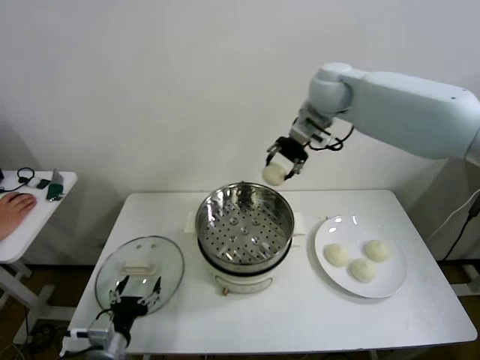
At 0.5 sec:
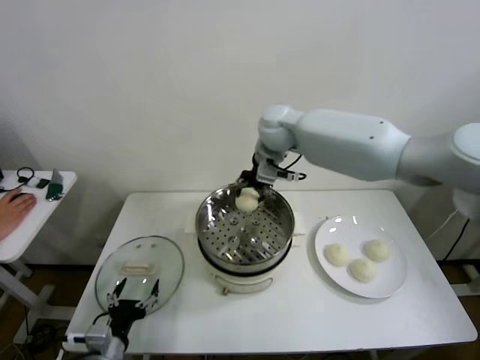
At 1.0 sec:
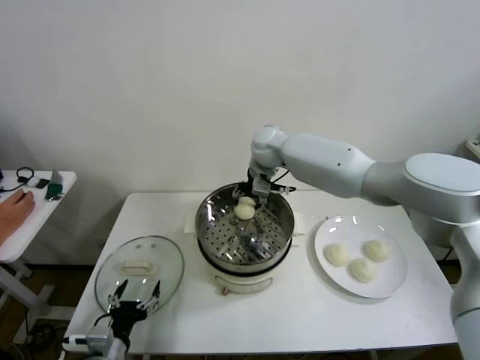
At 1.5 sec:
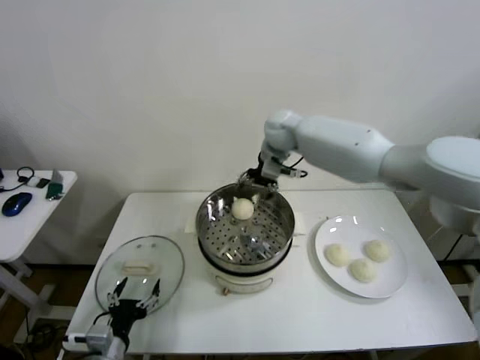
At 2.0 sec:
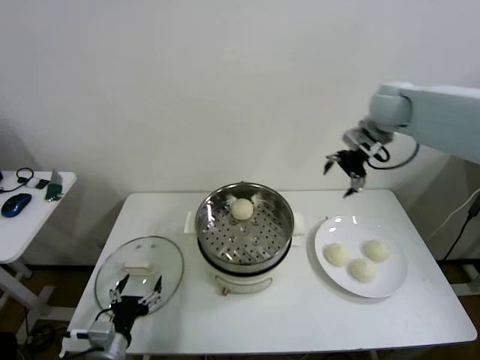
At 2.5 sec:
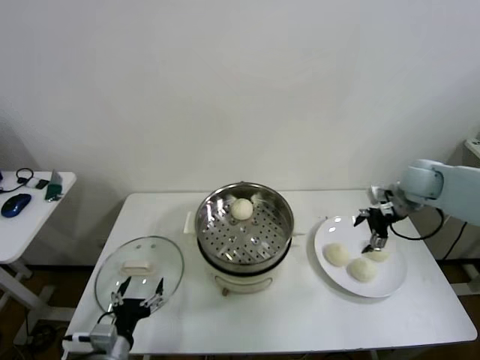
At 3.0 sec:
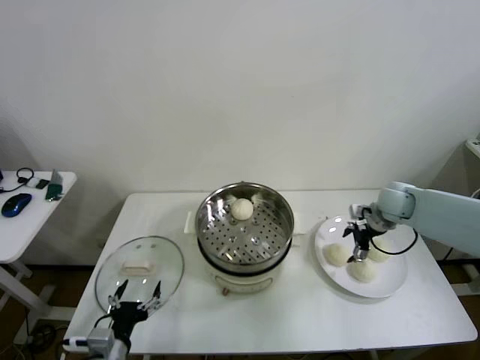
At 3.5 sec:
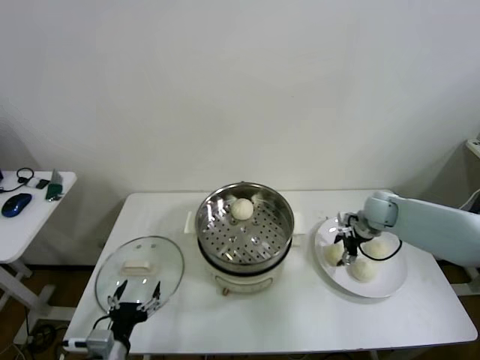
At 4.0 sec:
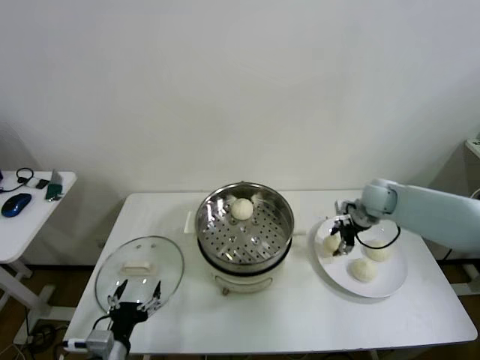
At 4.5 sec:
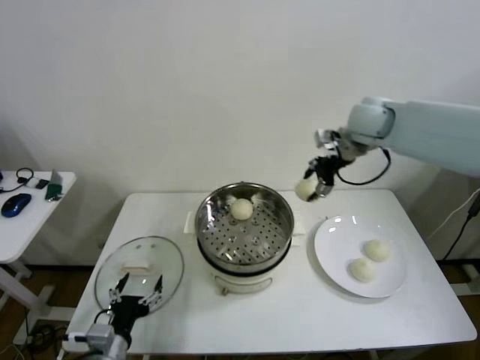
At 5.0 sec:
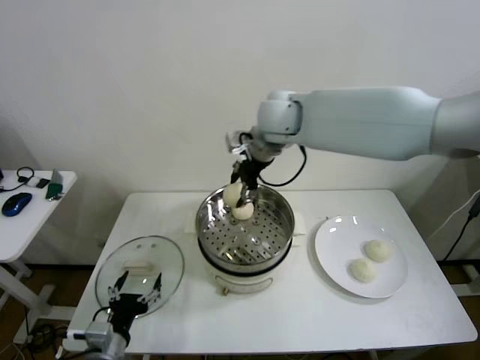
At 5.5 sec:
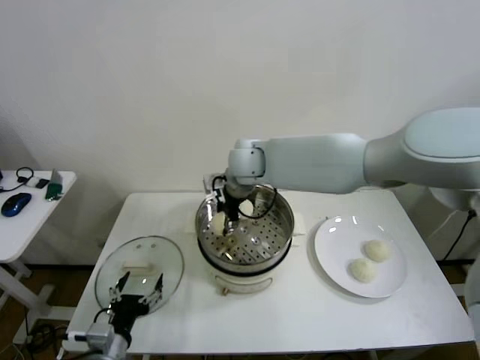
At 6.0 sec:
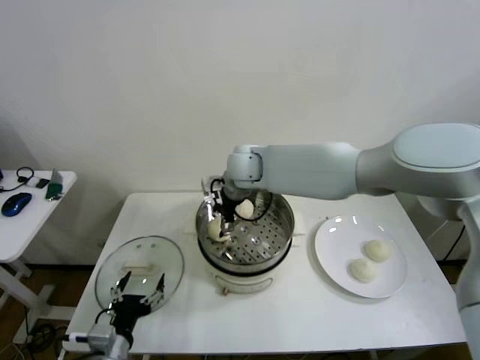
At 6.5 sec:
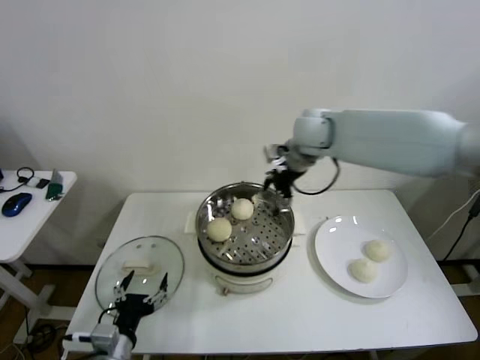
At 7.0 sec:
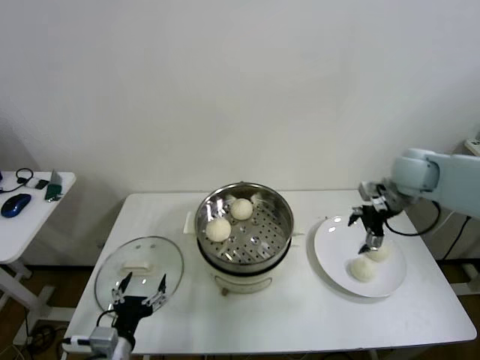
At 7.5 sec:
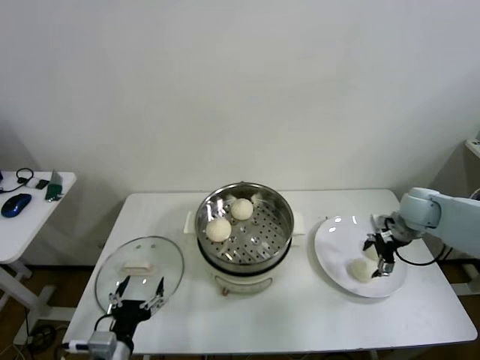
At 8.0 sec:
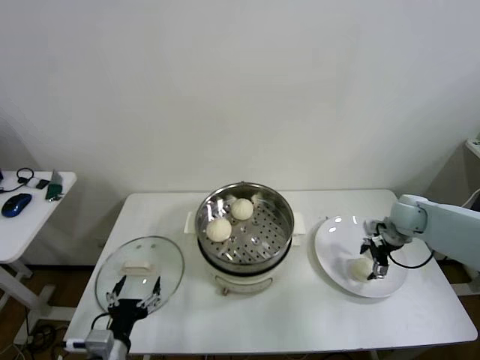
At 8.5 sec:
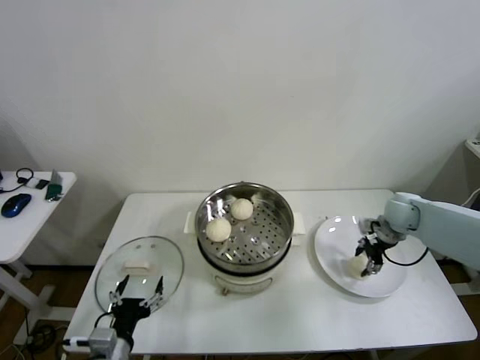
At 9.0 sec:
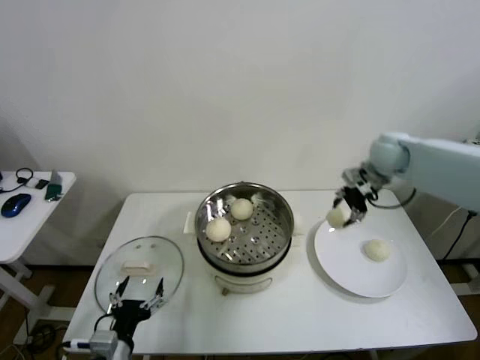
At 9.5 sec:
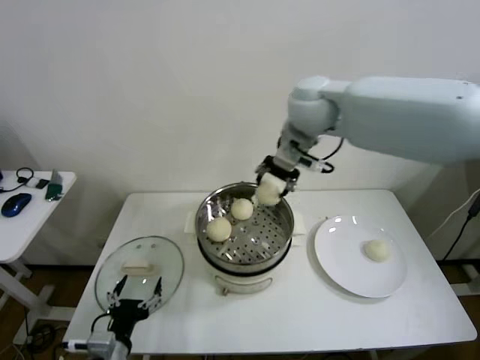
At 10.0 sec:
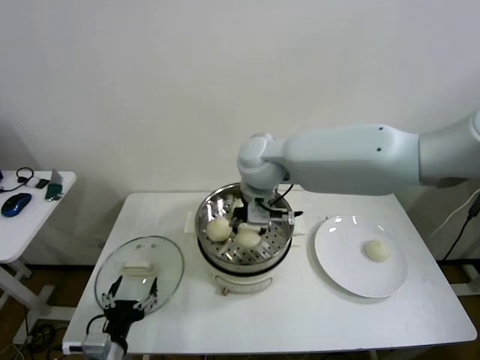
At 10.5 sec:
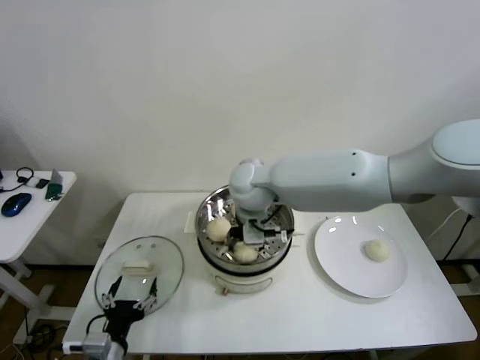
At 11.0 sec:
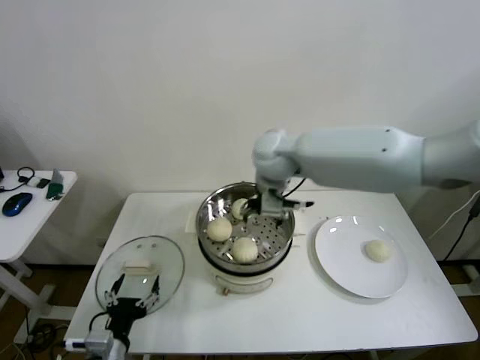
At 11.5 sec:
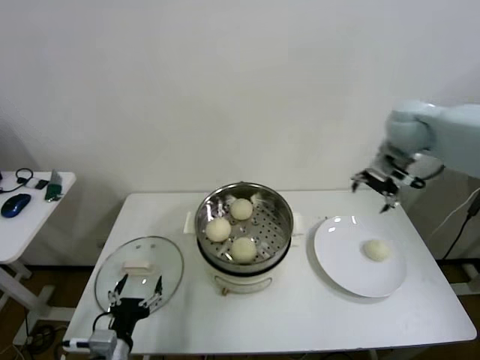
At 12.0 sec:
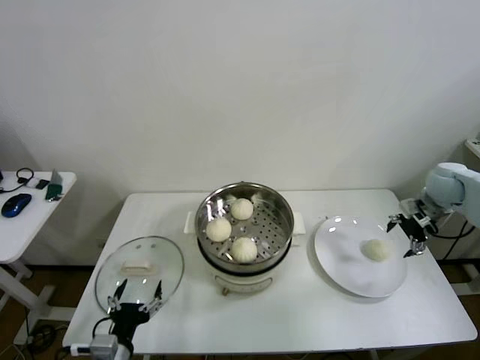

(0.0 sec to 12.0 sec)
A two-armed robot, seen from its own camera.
Step, 1.5 sec - 3.5 sec: Grasp the baozi in the plate with right gripper.
Step, 4.0 sec - 5.5 sec: Place the baozi on the steamer with right gripper.
Step, 6.0 sec - 8.0 sec: Grasp the baozi in the plate with right gripper.
Step, 8.5 sec - 10.5 sec: Place the baozi on the steamer with right gripper.
0.0 sec - 2.0 sec: The right gripper shifts about 20 cm to the right, and opens.
2.0 sec - 4.0 sec: The right gripper shifts about 20 cm downward, and closes up.
4.0 sec - 6.0 sec: The right gripper shifts roughly 35 cm to the left, and opens its fingers.
6.0 sec - 8.0 sec: The right gripper heads to the right, covering about 40 cm.
8.0 sec - 10.0 sec: The right gripper moves to the left and upward, roughly 40 cm, and closes.
10.0 sec - 12.0 sec: The right gripper heads to the right, covering about 40 cm, and opens its fingers.

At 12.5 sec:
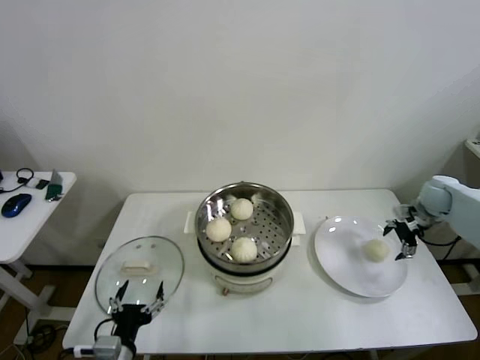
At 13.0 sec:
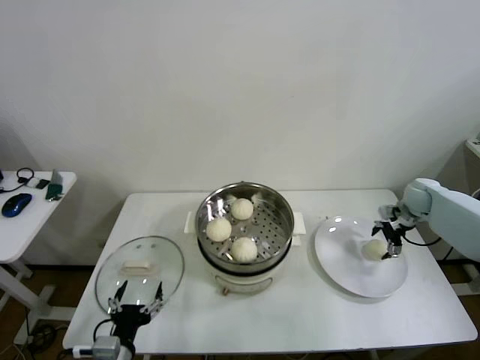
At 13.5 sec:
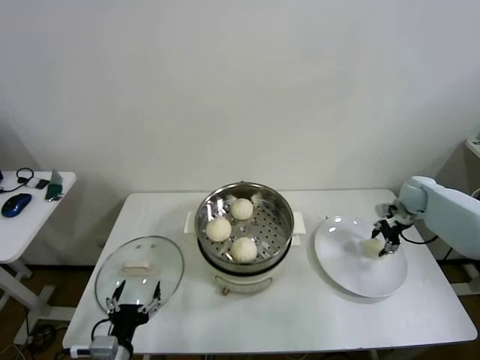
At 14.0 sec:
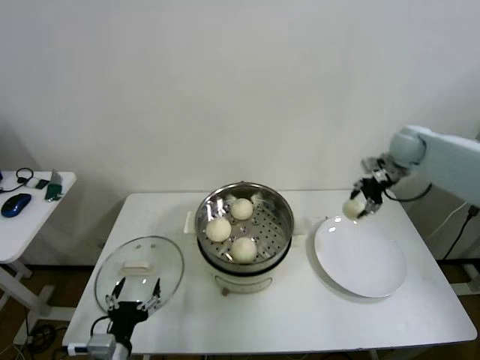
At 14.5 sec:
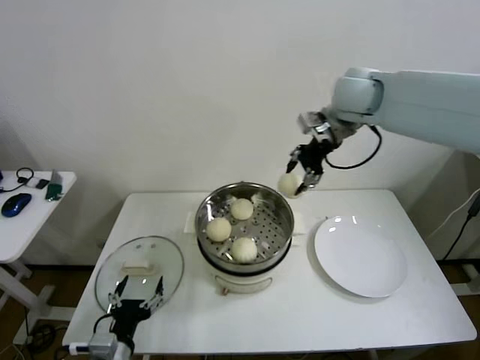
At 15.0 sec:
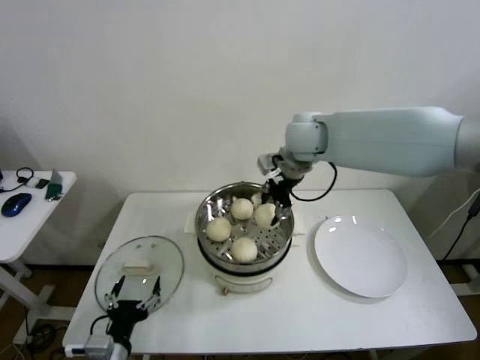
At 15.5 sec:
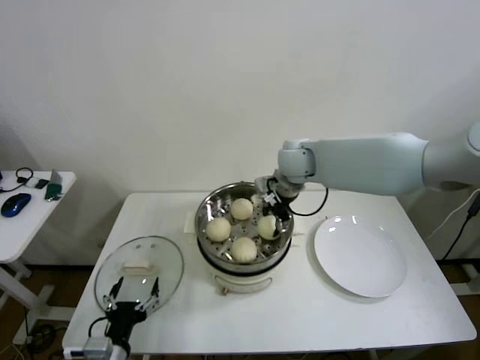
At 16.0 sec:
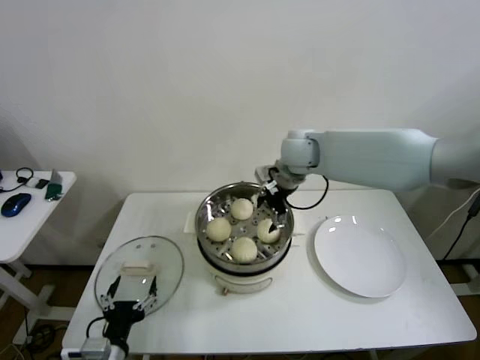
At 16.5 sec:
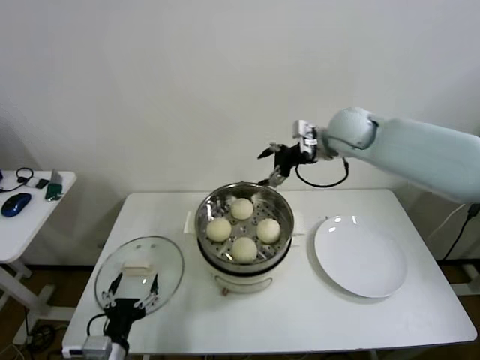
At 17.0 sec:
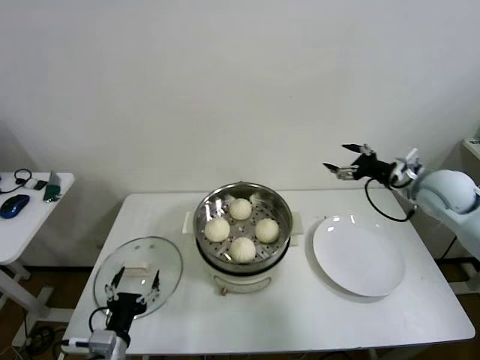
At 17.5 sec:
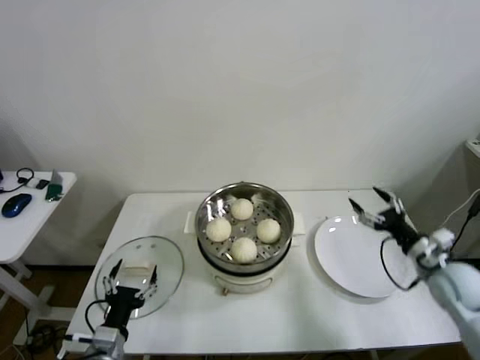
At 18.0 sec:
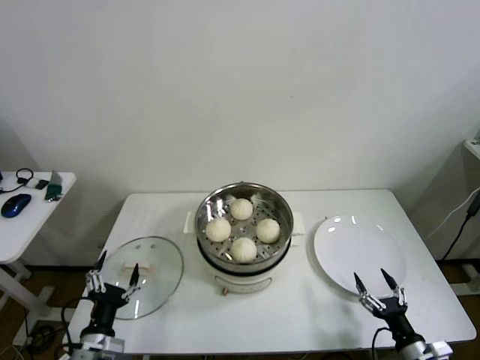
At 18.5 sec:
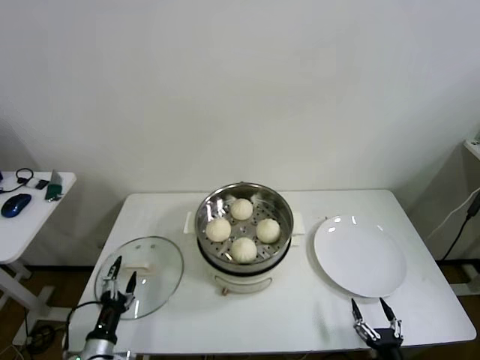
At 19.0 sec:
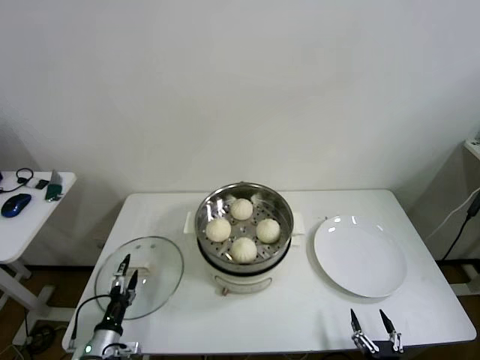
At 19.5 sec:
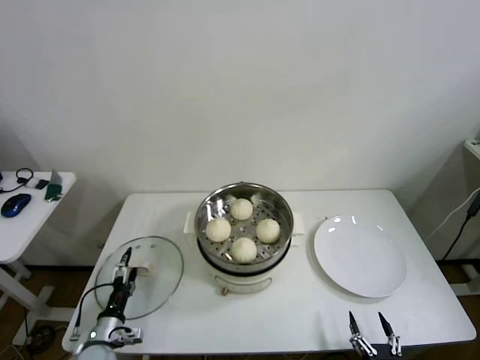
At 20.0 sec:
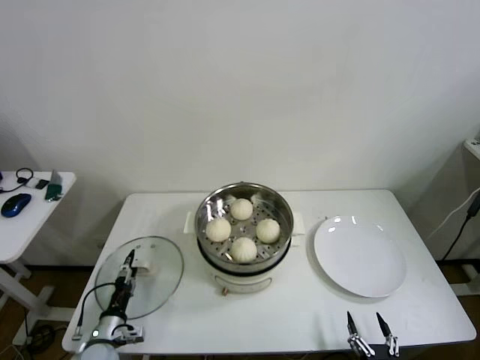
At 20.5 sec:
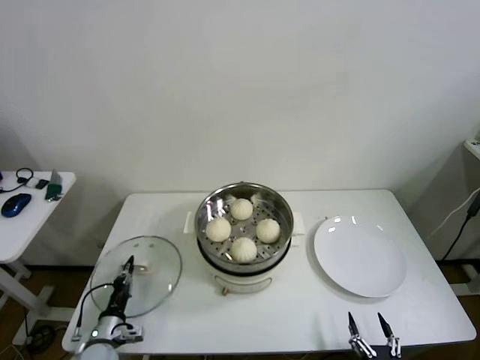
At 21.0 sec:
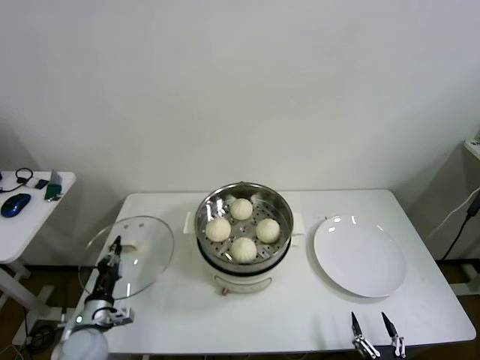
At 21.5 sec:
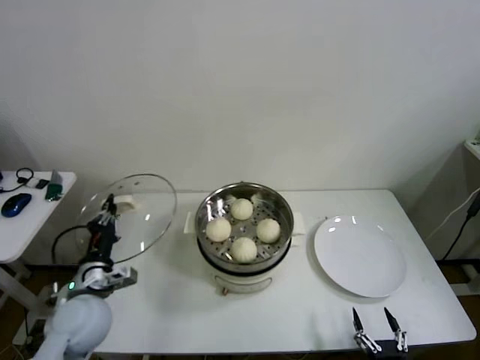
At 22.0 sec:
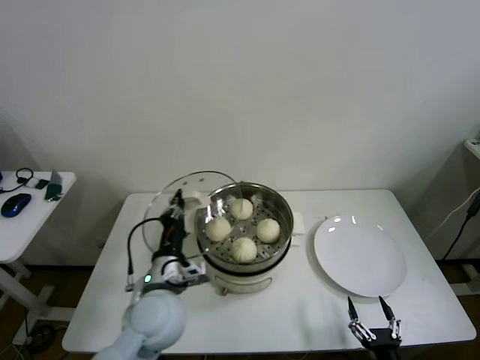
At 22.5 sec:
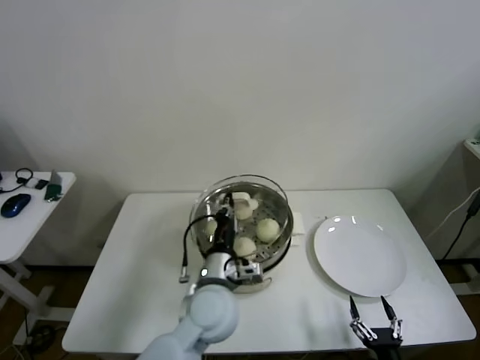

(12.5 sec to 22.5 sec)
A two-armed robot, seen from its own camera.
Step, 14.0 sec - 15.5 sec: Place the baozi on the steamer with right gripper.
Step, 16.0 sec - 20.0 sec: Grasp the pot lid with left gripper.
12.5 sec - 14.5 sec: The right gripper moves to the left and upward, some 40 cm, and closes up.
14.5 sec - 16.5 sec: The right gripper shifts some 10 cm downward, and opens up.
16.5 sec - 18.5 sec: The left gripper goes roughly 10 cm downward and to the left, while the right gripper is displaced backward and downward by some 60 cm.
18.5 sec - 20.5 sec: The left gripper heads forward and downward, covering approximately 10 cm, and closes.
20.5 sec - 22.5 sec: The left gripper goes approximately 35 cm to the right and upward.

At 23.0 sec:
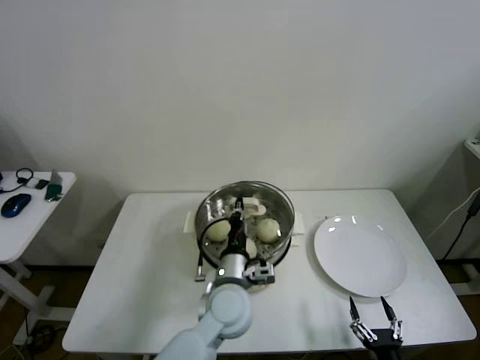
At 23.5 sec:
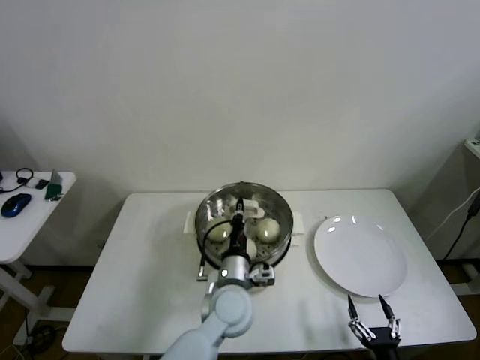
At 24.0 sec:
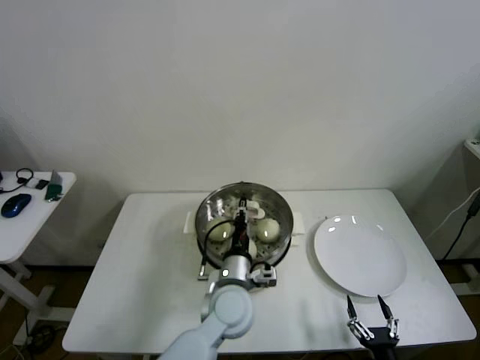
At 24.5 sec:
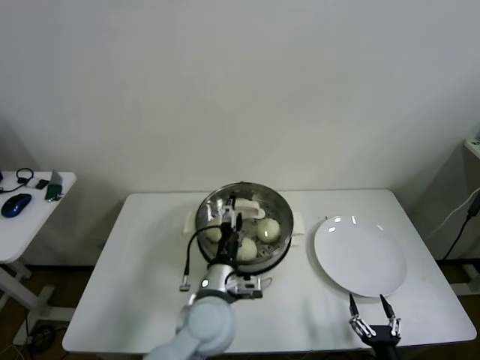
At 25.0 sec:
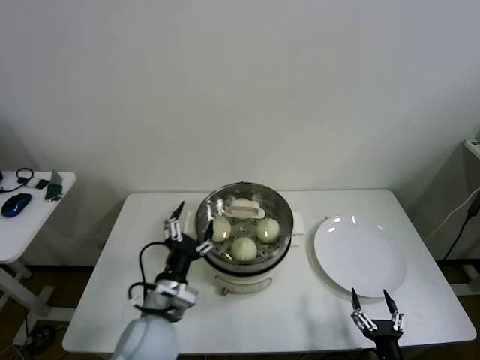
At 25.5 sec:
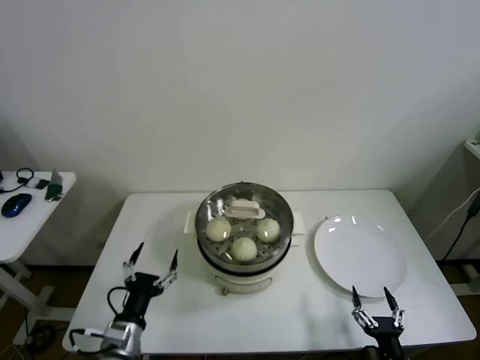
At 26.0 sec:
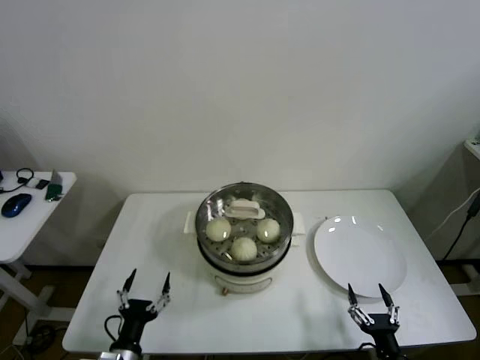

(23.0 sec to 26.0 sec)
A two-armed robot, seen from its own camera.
23.0 sec - 24.5 sec: The left gripper opens.
24.5 sec - 26.0 sec: The left gripper heads to the left, downward and backward, covering some 30 cm.
